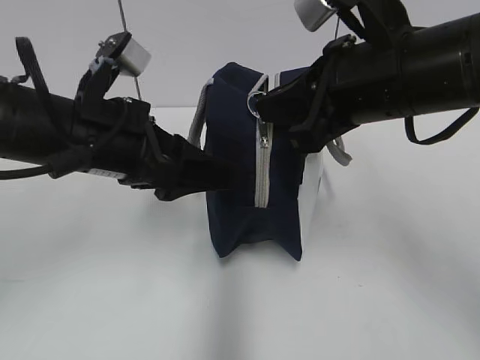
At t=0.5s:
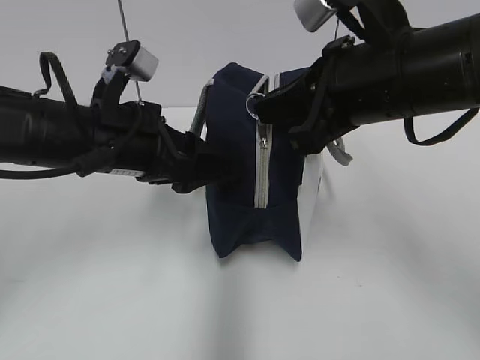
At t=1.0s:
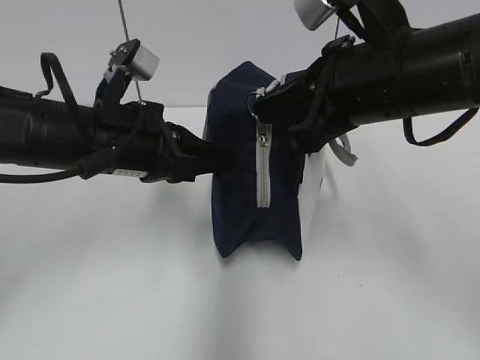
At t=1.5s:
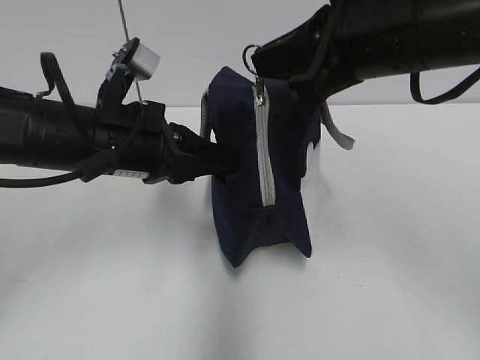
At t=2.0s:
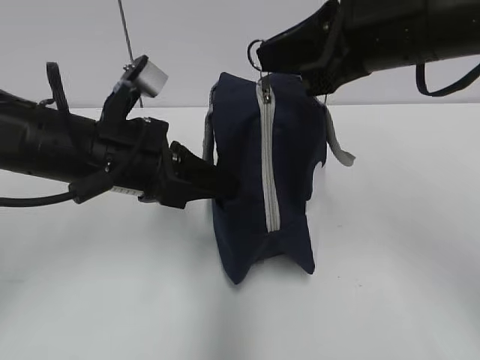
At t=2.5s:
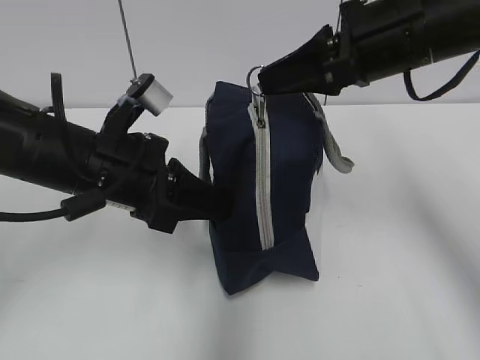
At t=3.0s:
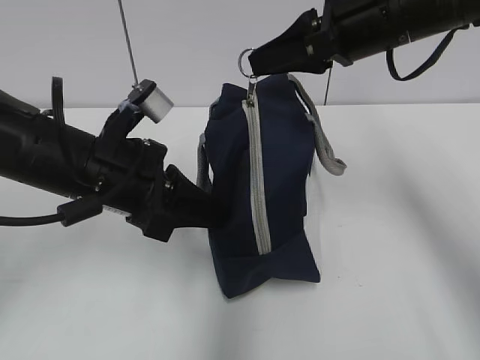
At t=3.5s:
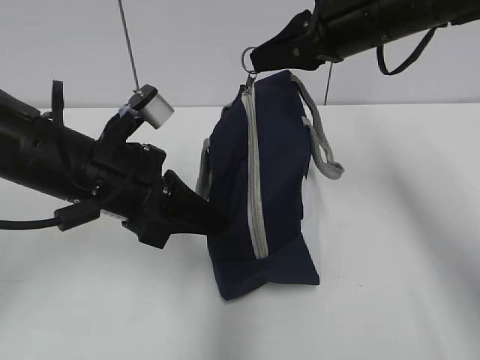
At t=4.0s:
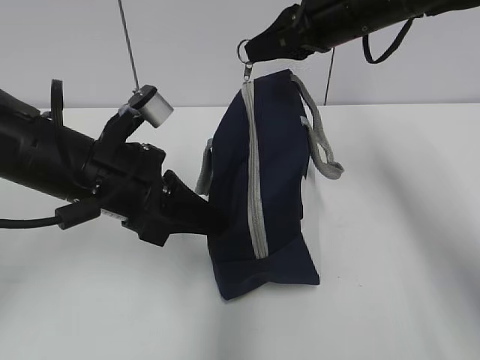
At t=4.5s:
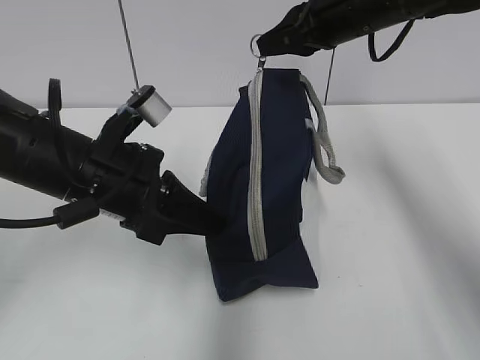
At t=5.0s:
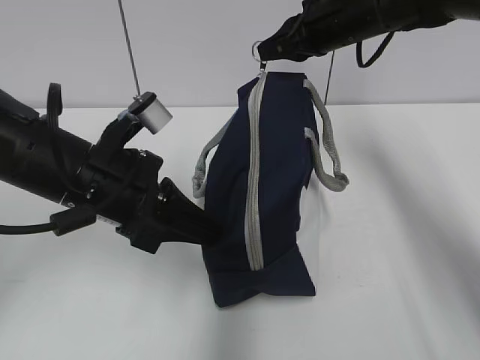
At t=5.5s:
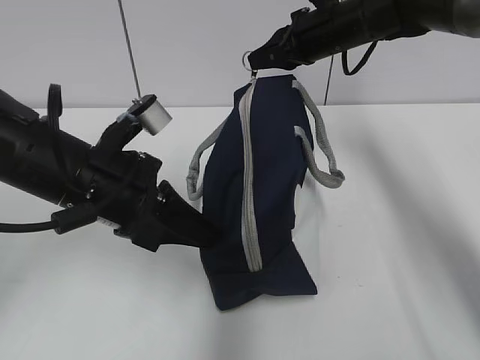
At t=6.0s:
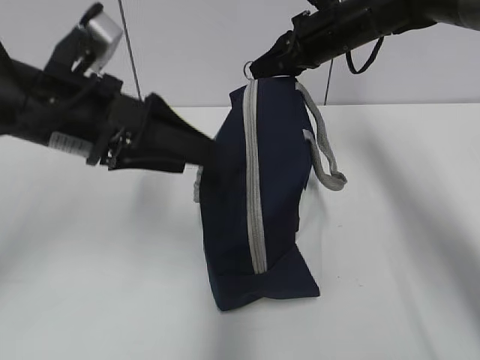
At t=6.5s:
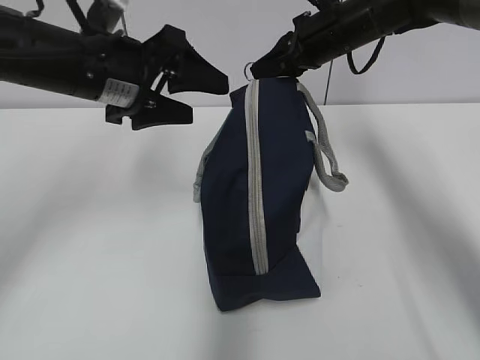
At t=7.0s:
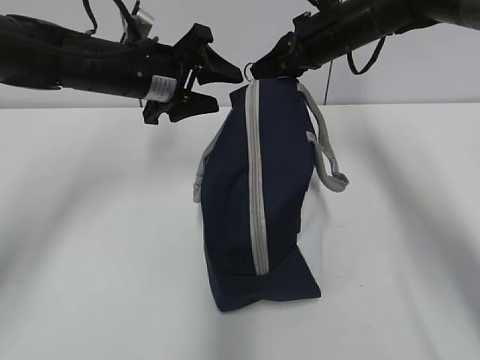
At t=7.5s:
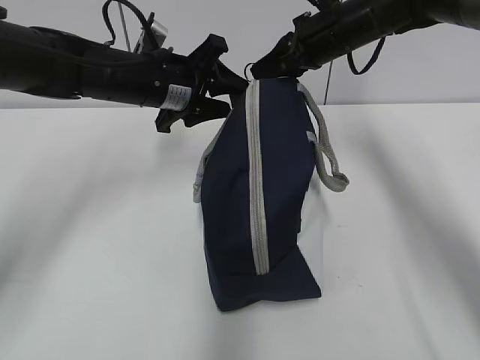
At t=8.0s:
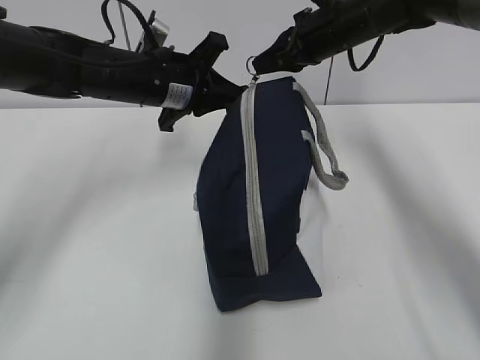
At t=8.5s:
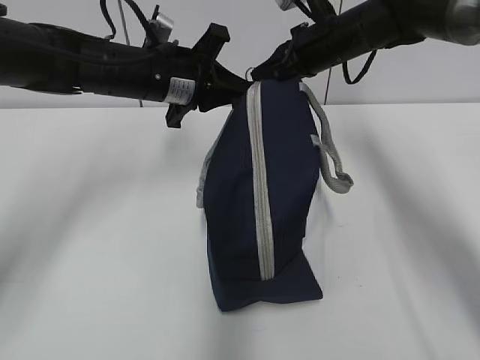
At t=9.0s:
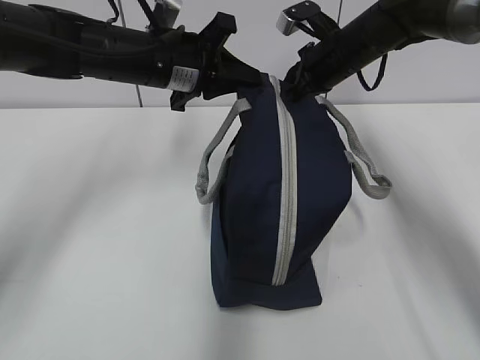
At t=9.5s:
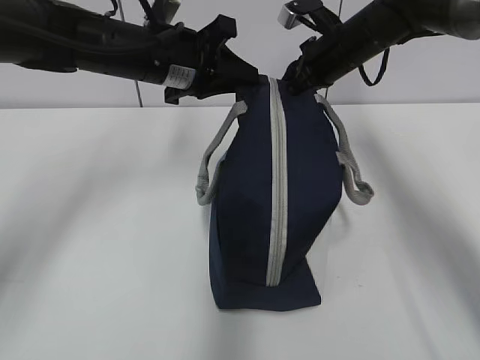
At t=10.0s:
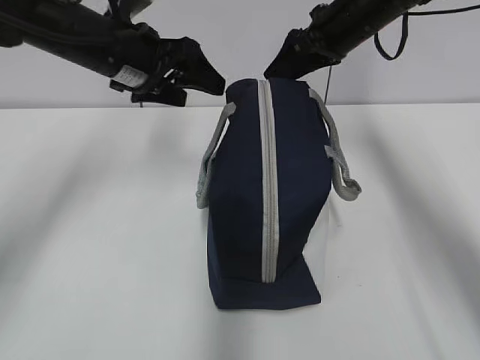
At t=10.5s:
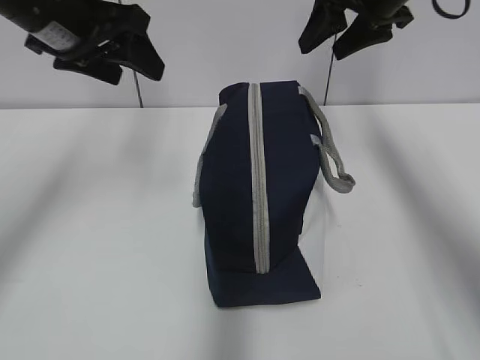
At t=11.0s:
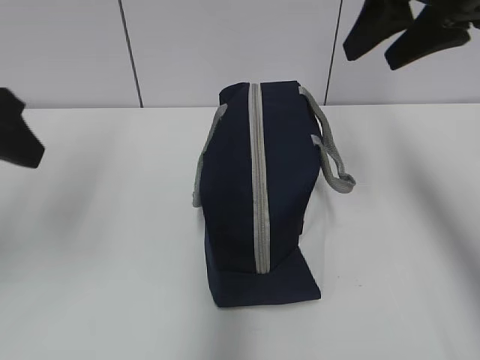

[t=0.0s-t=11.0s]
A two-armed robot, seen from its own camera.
Step, t=0.0s to t=5.5s: Grab the lunch bag with your left hand.
Step, t=6.0s to t=9.0s: Pull the zipper with your right hand.
t=0.0s to t=2.0s: The left gripper closes up.
t=2.0s to t=3.5s: The right gripper heads forward, covering approximately 10 cm.
t=3.5s to t=5.5s: The right gripper travels forward and downward by about 15 cm.
t=5.5s to t=7.5s: The left gripper heads forward, covering about 15 cm, and opens its fingers.
t=7.5s to t=9.0s: The left gripper closes up.
t=9.0s to t=11.0s: The right gripper is displaced backward and upward by some 20 cm, and opens up. Meanwhile the left gripper shifts roughly 25 cm backward, to the left and upward, and opens up.

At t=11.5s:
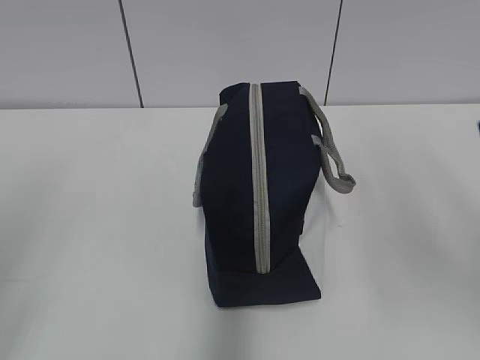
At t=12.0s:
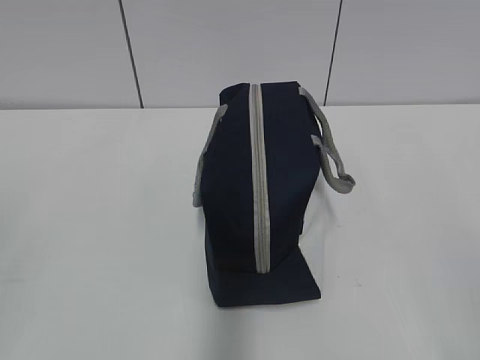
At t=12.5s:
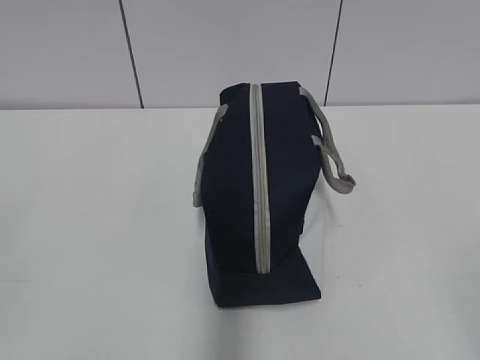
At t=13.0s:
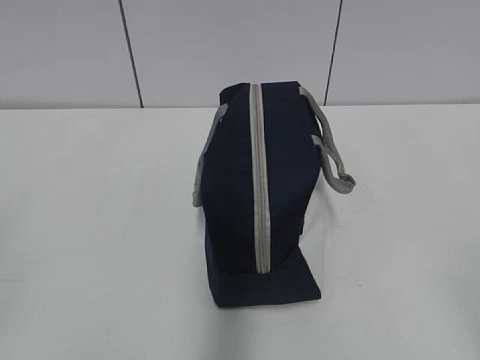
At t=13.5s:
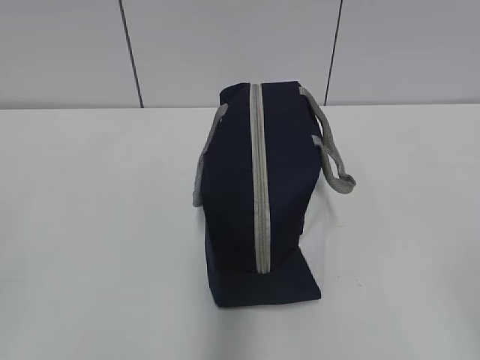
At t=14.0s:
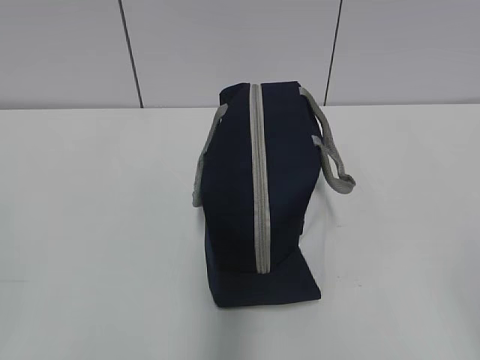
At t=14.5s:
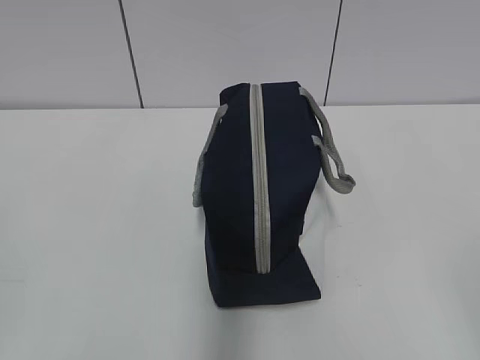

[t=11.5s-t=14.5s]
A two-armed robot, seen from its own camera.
t=11.5s to t=13.0s: The right gripper shifts roughly 20 cm backward and downward.

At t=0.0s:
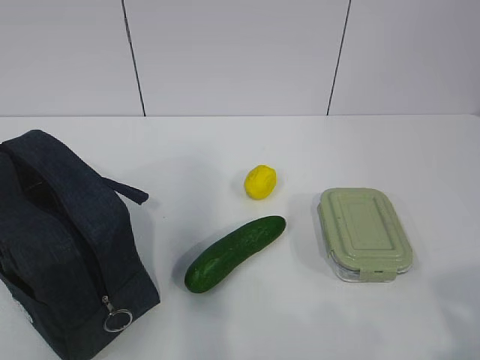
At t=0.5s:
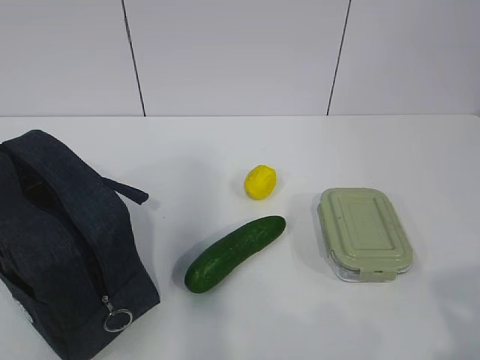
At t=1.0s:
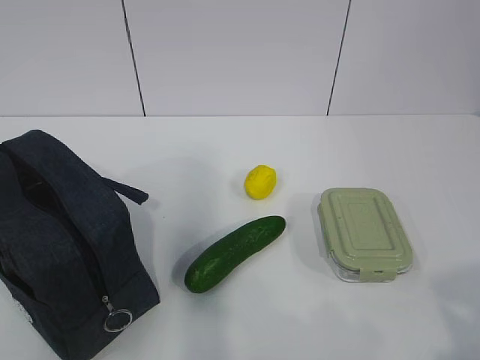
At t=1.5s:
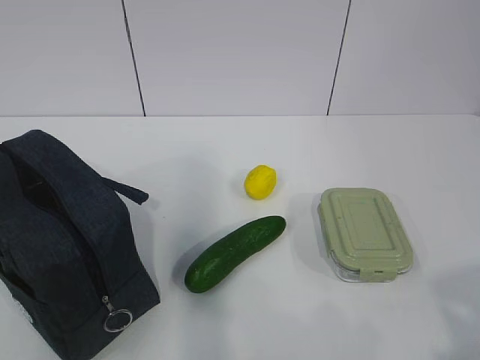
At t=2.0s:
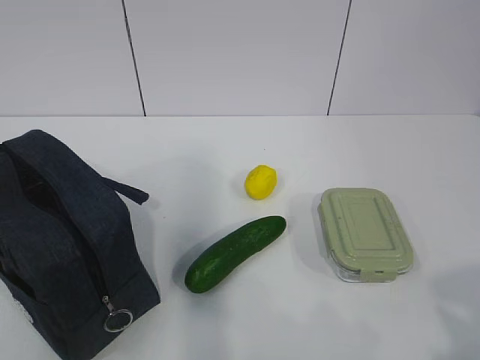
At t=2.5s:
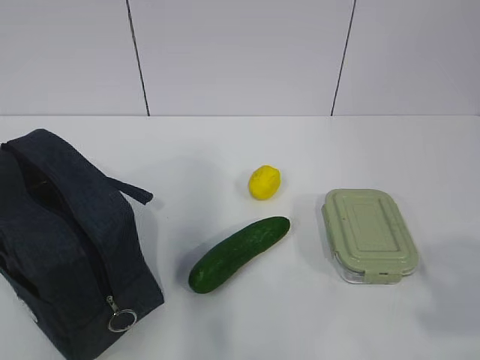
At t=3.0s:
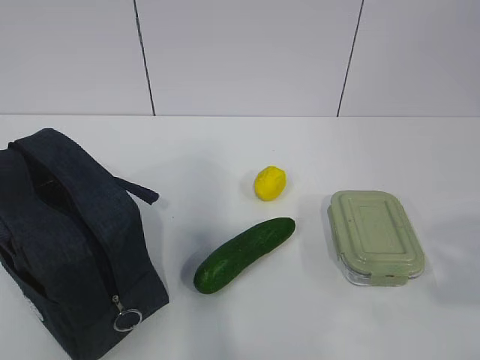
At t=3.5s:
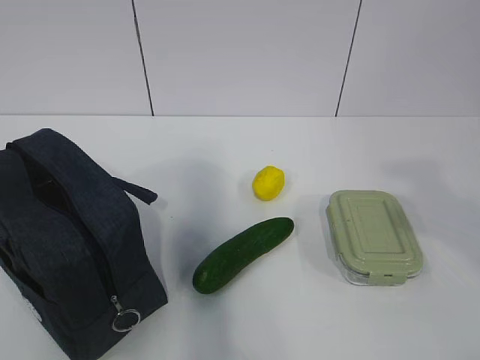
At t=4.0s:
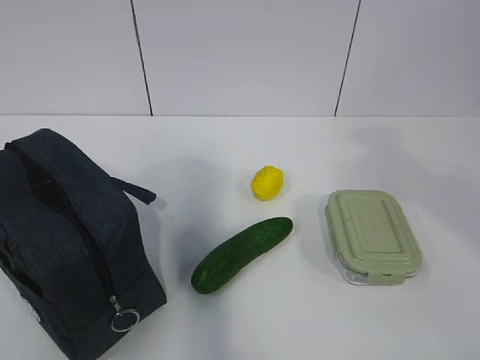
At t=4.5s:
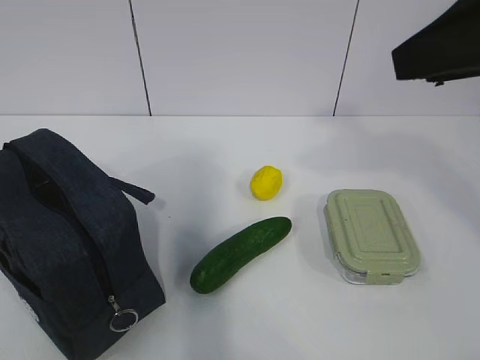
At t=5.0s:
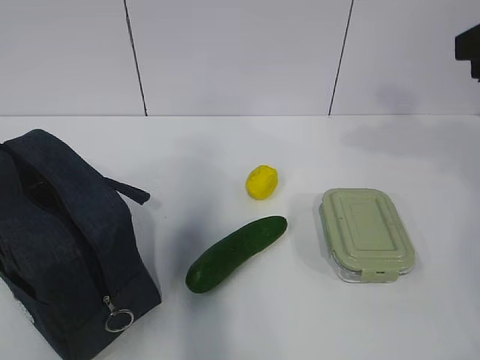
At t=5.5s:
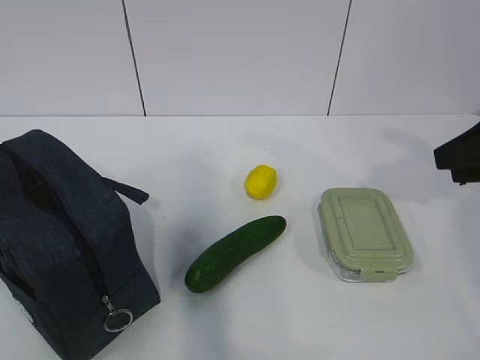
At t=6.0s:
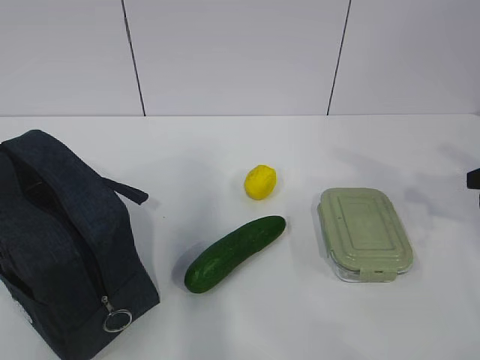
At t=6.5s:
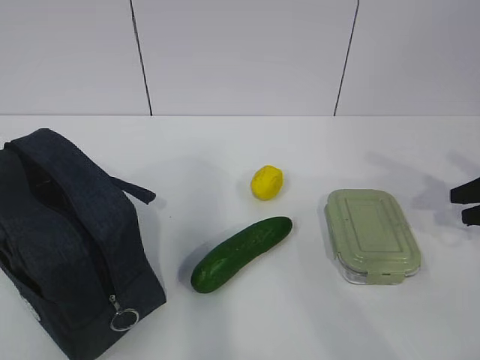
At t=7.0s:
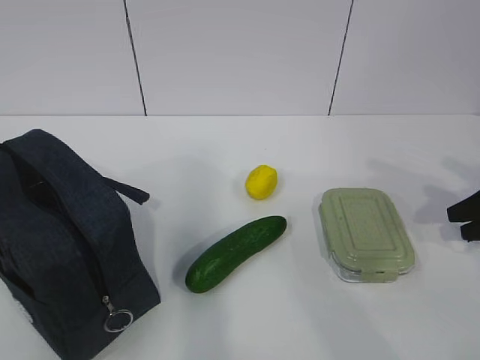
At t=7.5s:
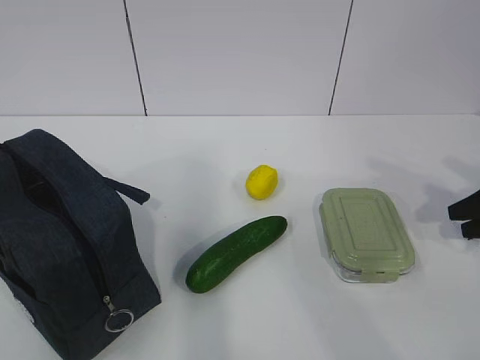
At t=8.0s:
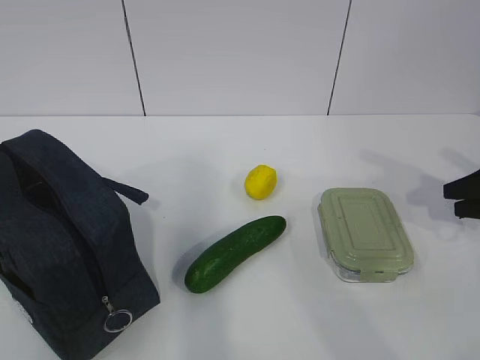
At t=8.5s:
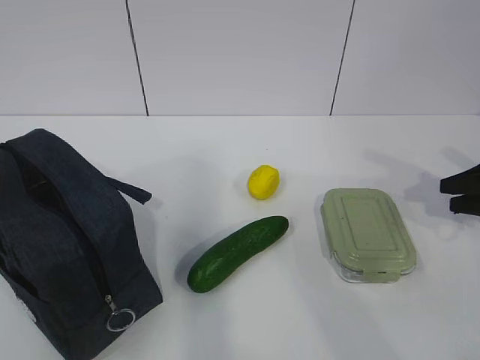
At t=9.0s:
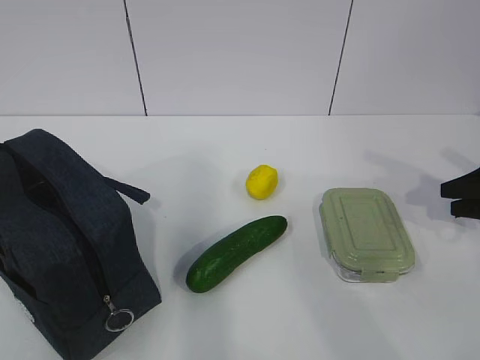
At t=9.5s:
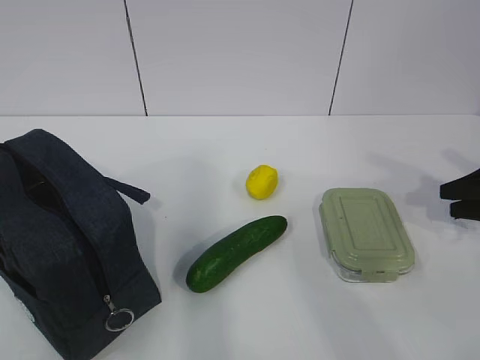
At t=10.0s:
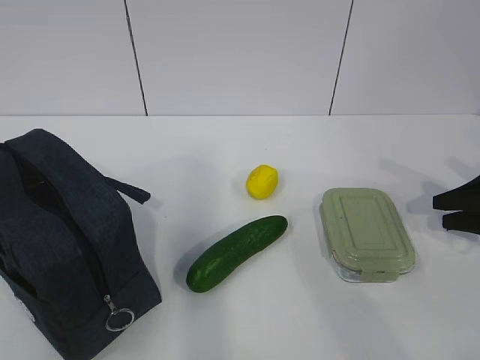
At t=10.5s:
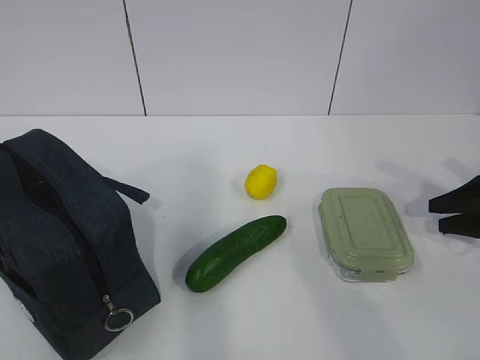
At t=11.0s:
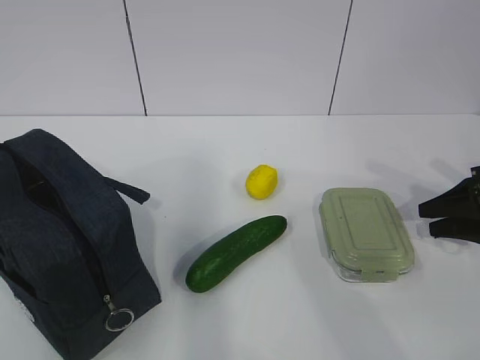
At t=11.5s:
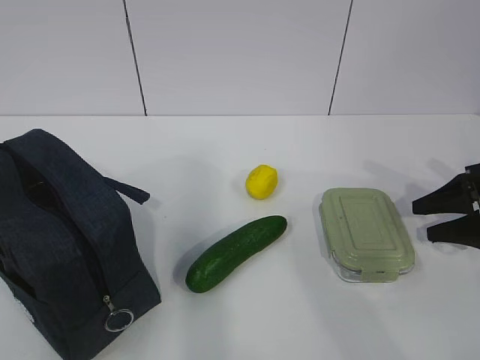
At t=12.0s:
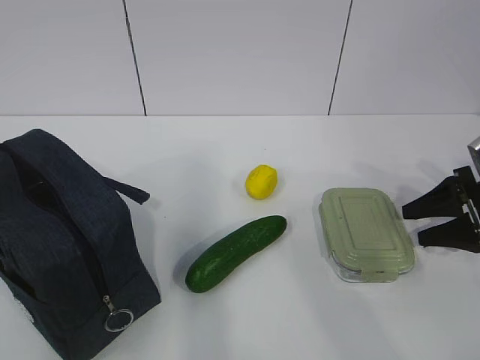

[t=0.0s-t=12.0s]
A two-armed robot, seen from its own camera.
t=2.0s to t=4.0s: The right gripper moves forward and upward, roughly 20 cm.
t=4.0s to t=6.0s: The right gripper moves downward, to the right and forward, approximately 25 cm.
t=6.0s to t=8.0s: The right gripper travels downward by some 5 cm.
t=8.0s to t=12.0s: The grippers make only small movements.
